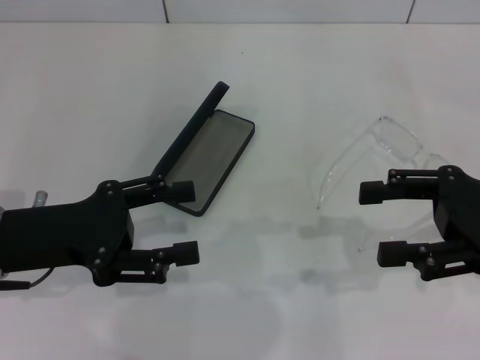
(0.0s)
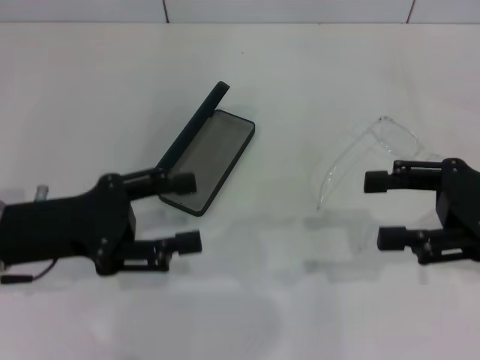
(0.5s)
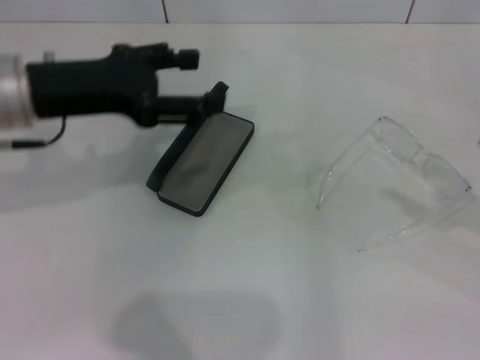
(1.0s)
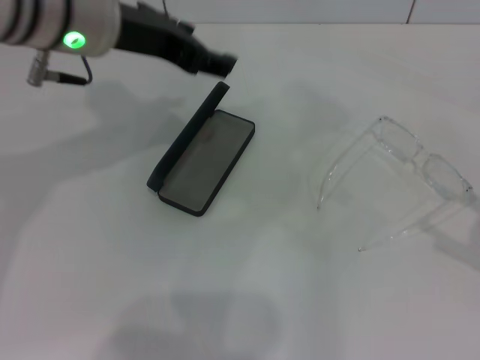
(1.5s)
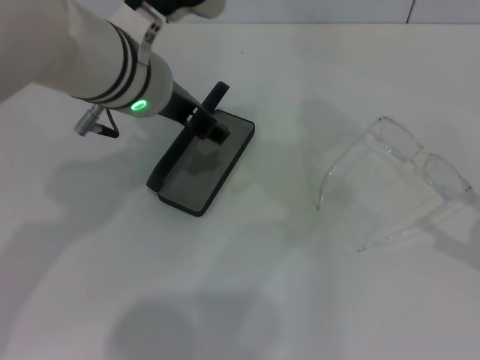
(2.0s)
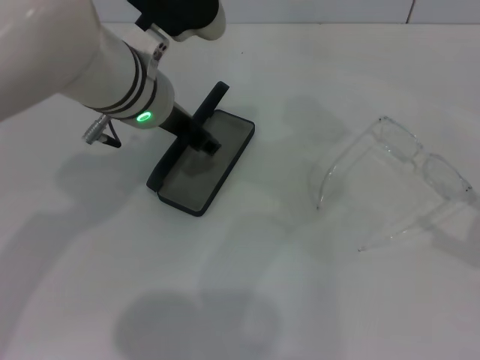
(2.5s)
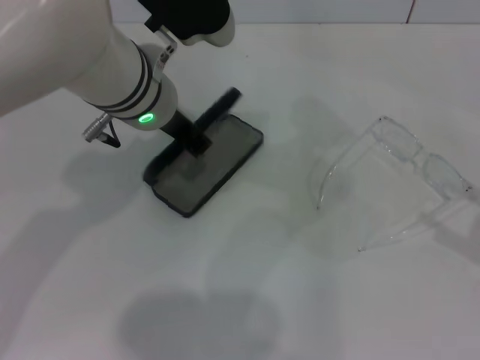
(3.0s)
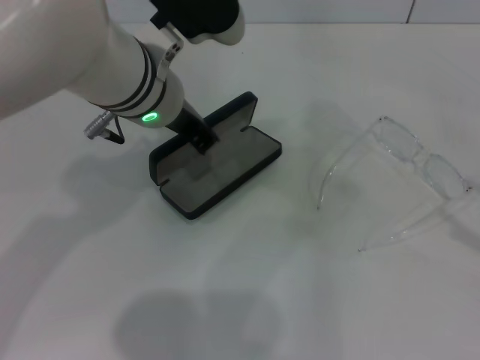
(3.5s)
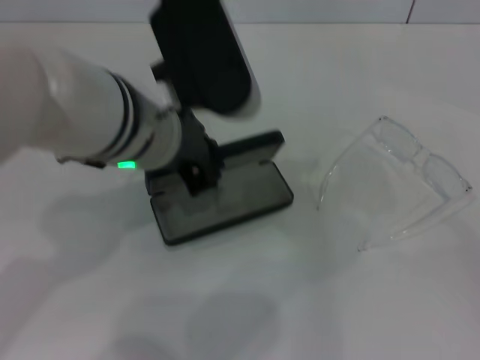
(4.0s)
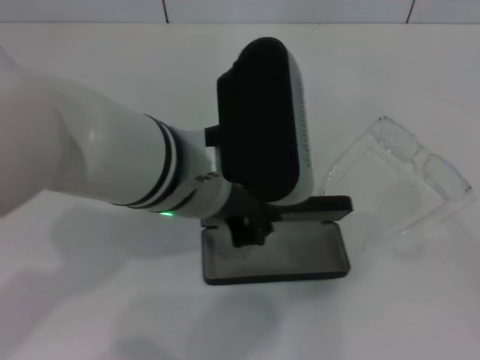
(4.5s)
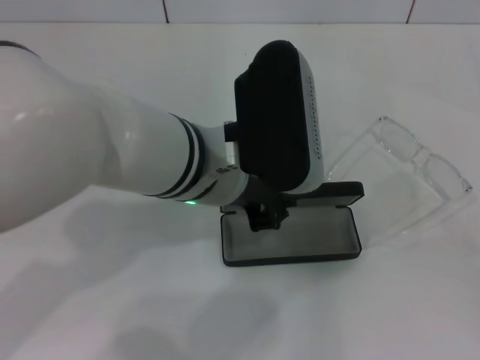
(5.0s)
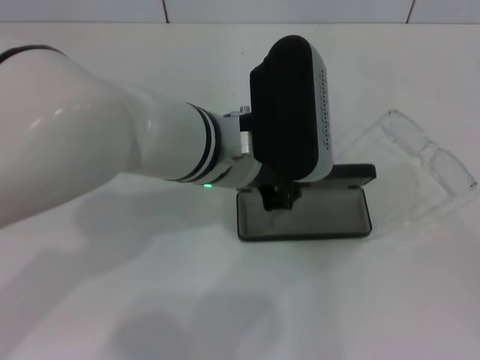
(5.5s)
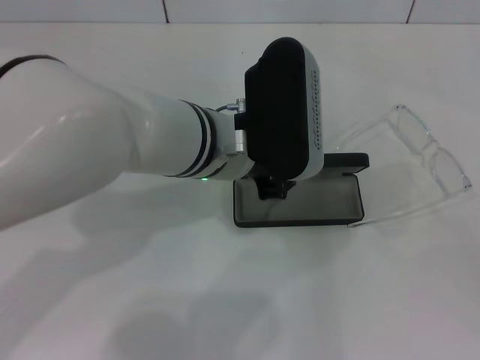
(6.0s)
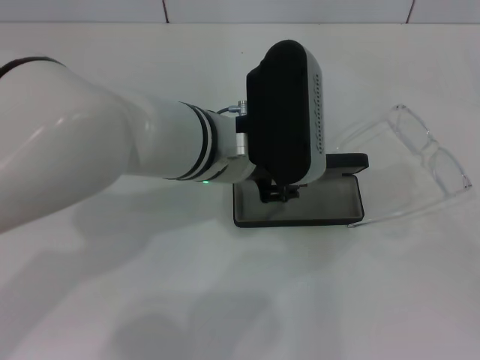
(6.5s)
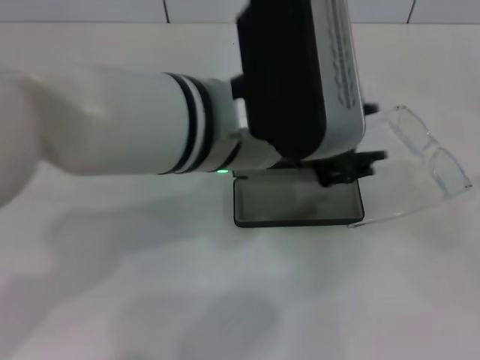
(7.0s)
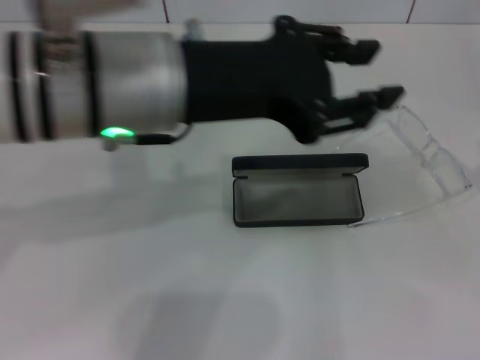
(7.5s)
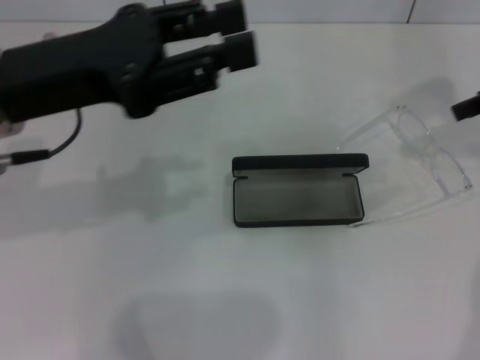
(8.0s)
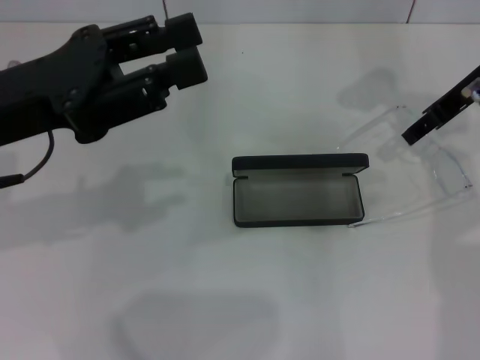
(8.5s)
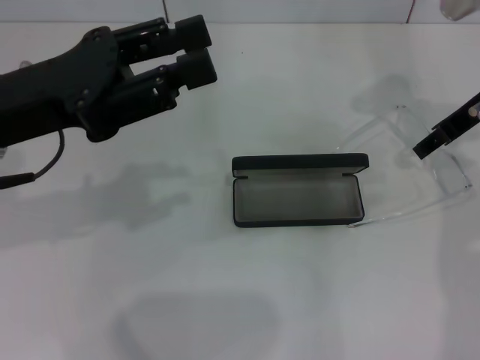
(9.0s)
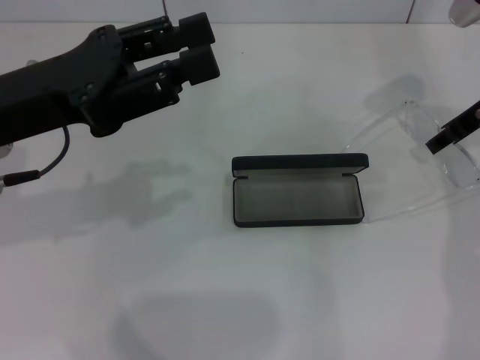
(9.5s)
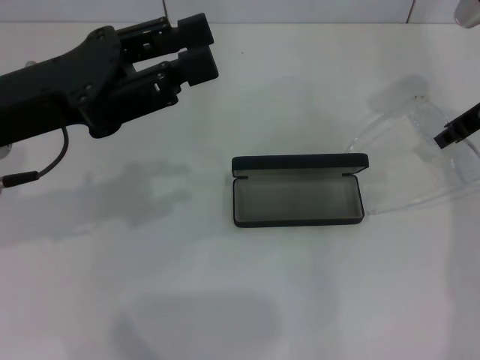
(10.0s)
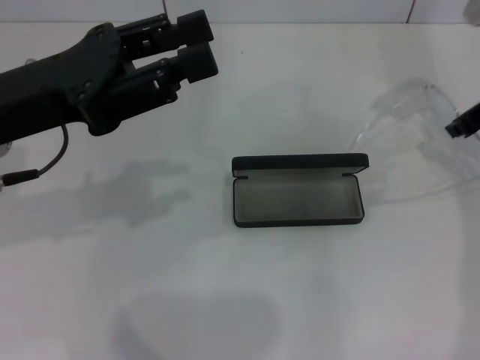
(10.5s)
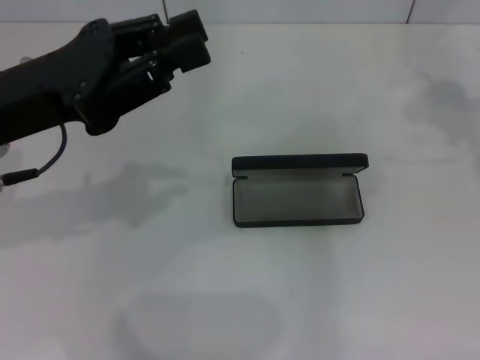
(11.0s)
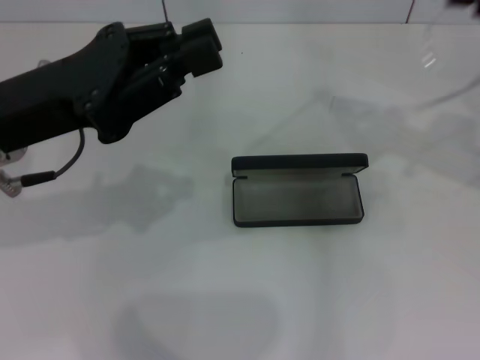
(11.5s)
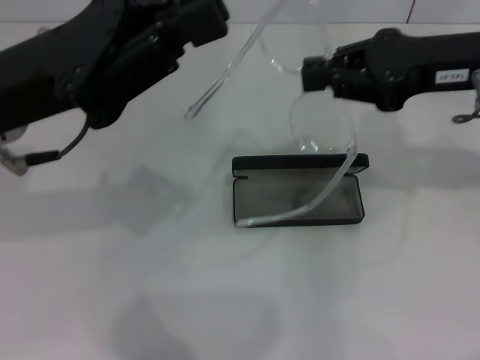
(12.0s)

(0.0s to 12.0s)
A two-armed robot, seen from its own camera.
Step, 0.0s - 2.5s: Grab the glasses case with your left hand.
Step, 3.0s - 6.5s: Place the glasses case in the center of the table with your left hand.
Step, 7.0s - 9.5s: Grab the eyeglass frame with your right hand.
0.0s - 2.0s: The left gripper heads to the right, forward and upward, covering about 20 cm, while the right gripper shifts about 15 cm to the right and backward.
2.0s - 4.0s: The right gripper moves backward and to the right, about 10 cm, while the left gripper goes approximately 5 cm backward, and closes its fingers.
4.0s - 6.0s: The left gripper heads downward, covering approximately 5 cm.
6.0s - 8.0s: The right gripper heads forward, to the left and upward, covering some 35 cm. The left gripper moves to the left and upward, some 20 cm.
8.0s - 10.0s: The right gripper goes about 10 cm downward.
10.0s - 12.0s: The left gripper closes up. Meanwhile the right gripper shifts roughly 10 cm backward and upward, and closes its fingers.

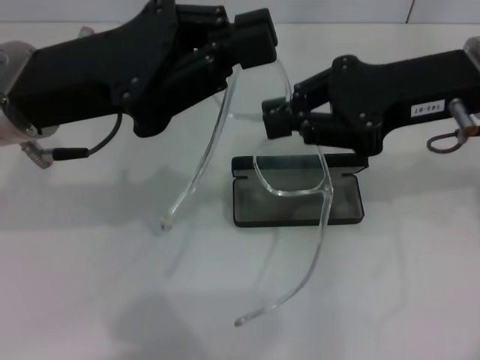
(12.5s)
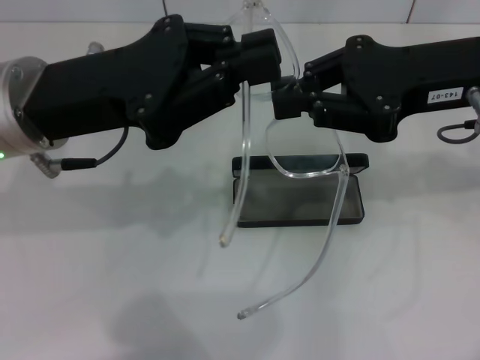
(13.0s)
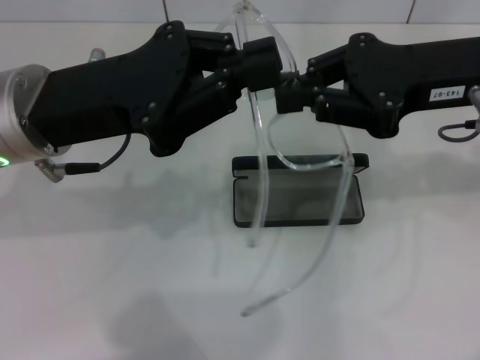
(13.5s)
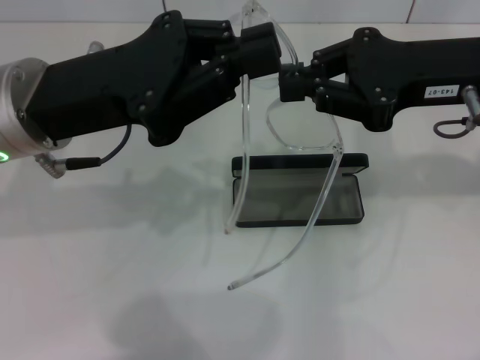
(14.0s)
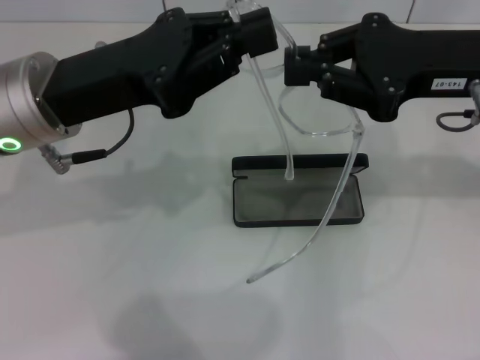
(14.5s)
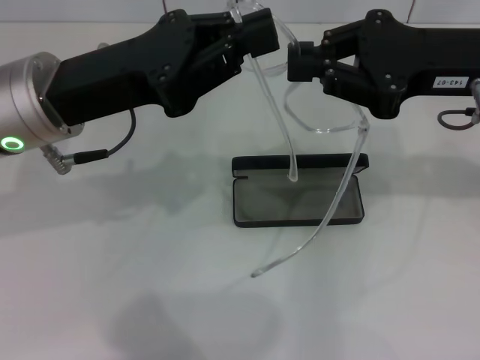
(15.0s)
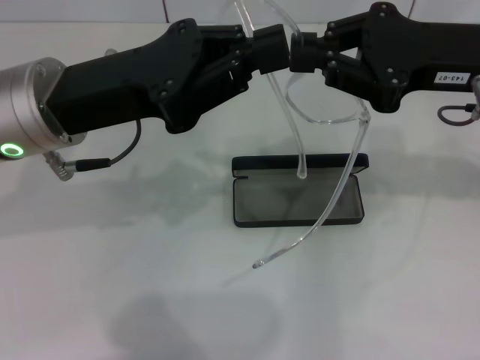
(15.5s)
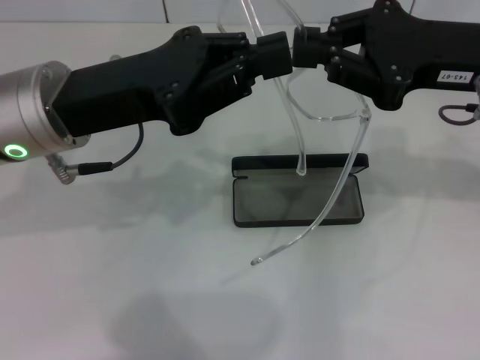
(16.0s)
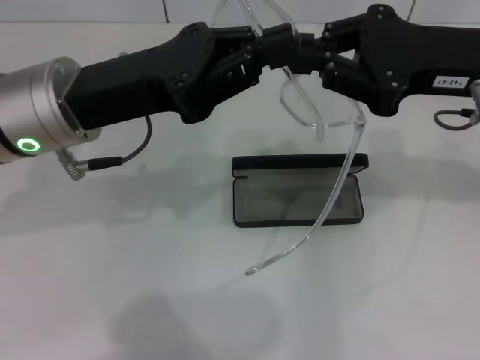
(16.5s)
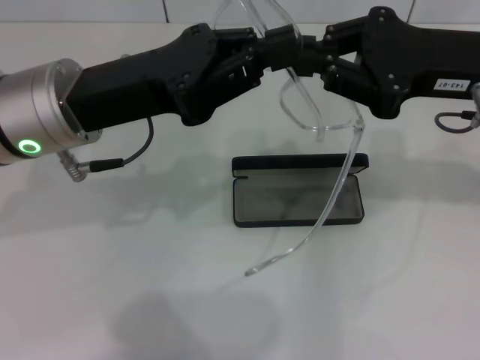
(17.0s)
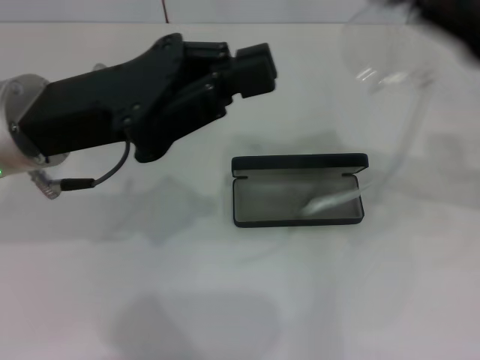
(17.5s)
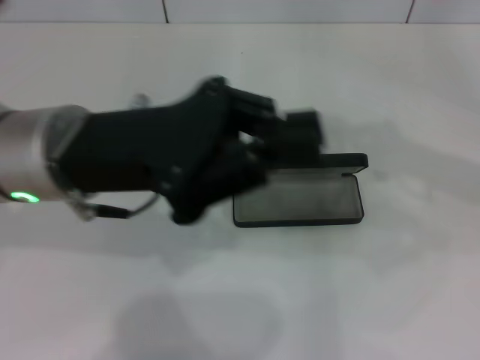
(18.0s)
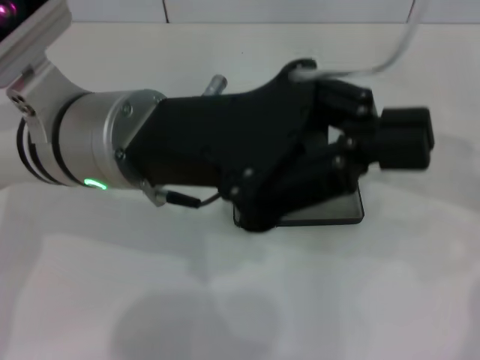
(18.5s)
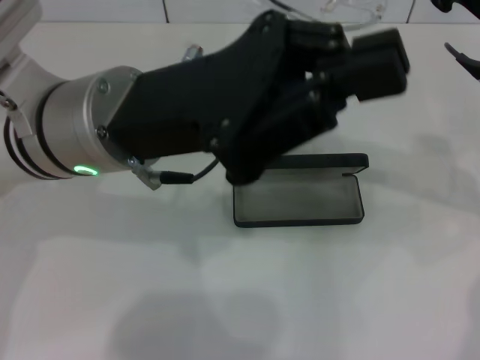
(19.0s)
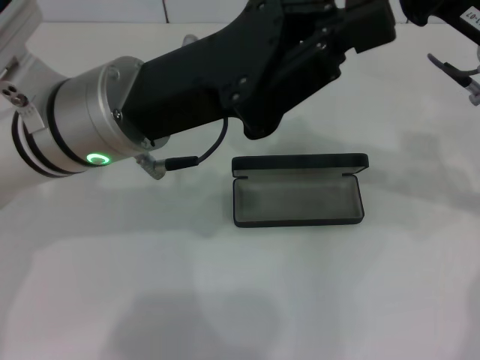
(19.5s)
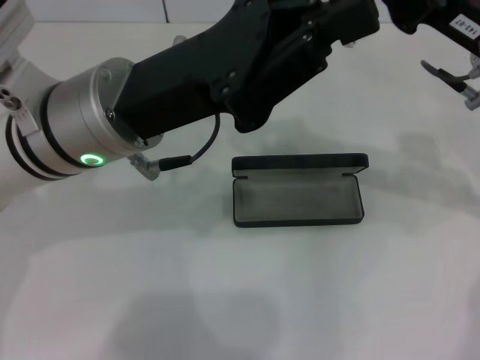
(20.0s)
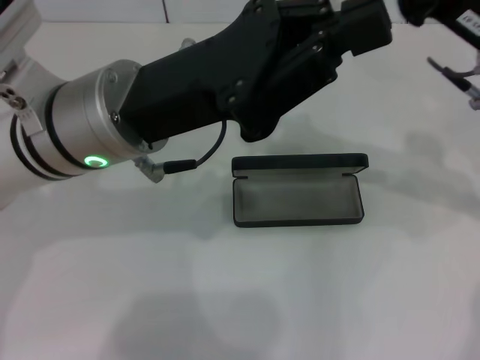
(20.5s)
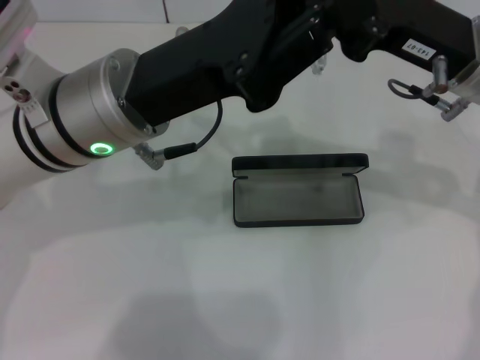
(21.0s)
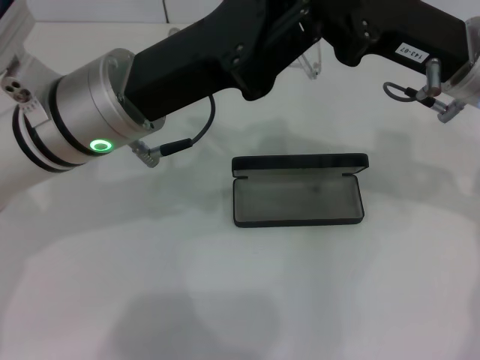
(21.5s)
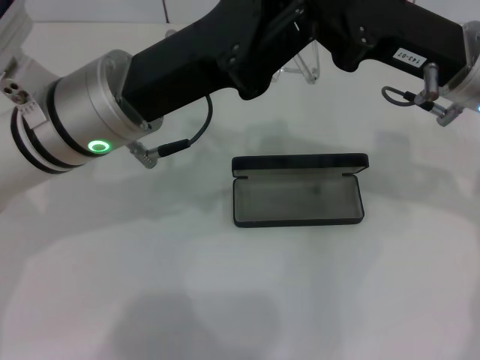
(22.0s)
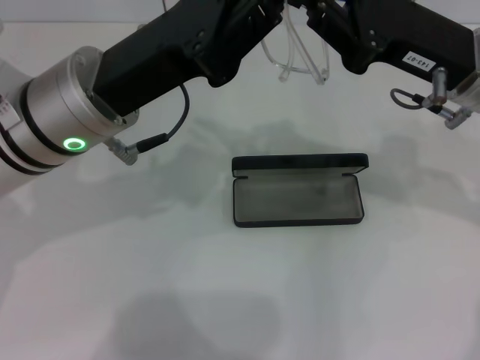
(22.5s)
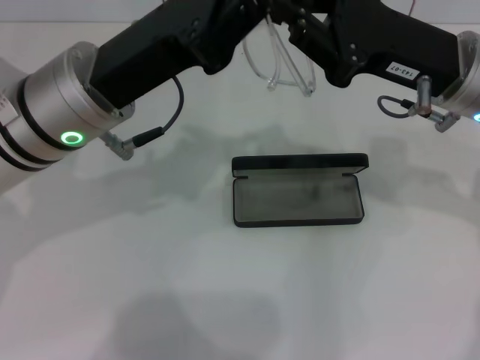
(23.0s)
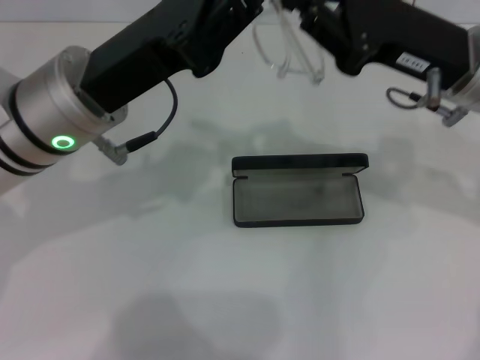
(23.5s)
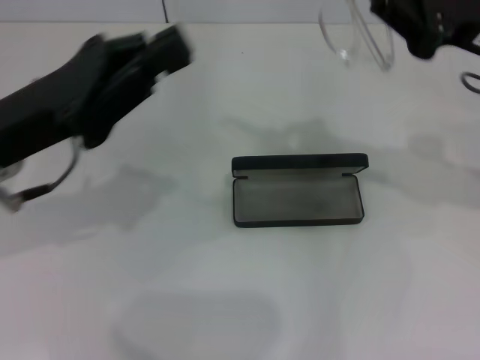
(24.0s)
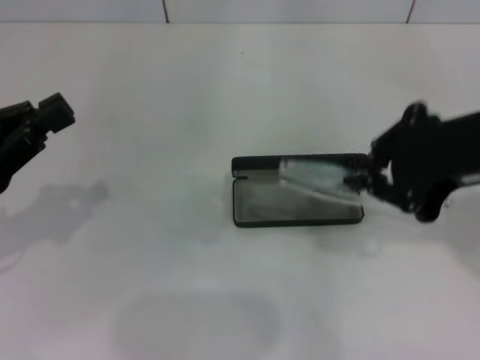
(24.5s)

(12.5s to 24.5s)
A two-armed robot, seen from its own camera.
Step, 12.5s - 23.5s: Fold the frame with your left hand.
14.5s - 16.5s: There are only small adjustments of the grippers.
16.5s - 18.5s: The right gripper goes to the right and returns, roughly 10 cm each way, while the left gripper heads to the right, covering about 5 cm.
22.5s - 24.5s: The left gripper travels to the left and backward by about 20 cm; the right gripper is displaced backward and upward by about 10 cm.

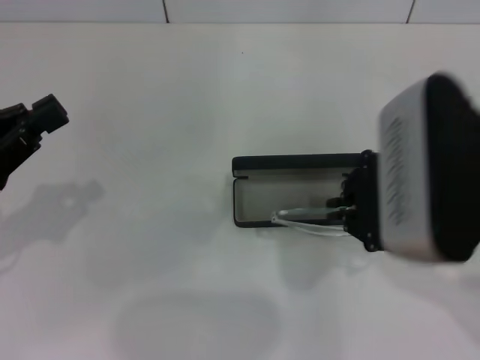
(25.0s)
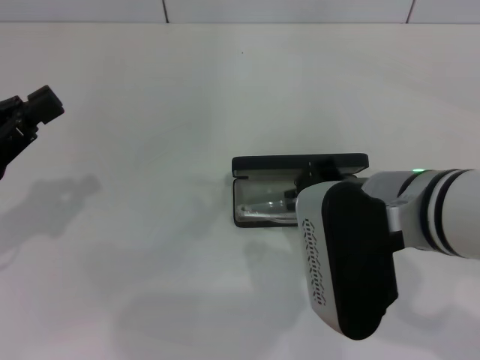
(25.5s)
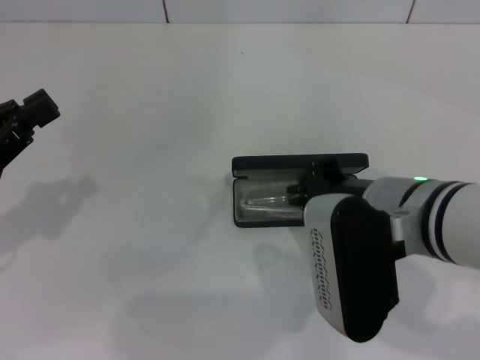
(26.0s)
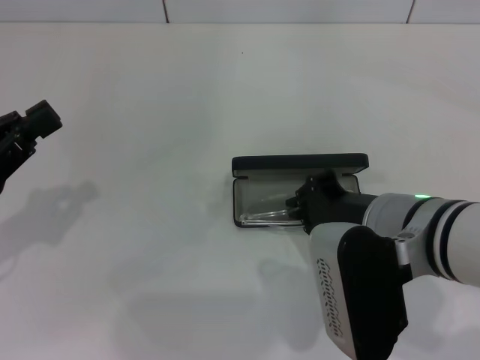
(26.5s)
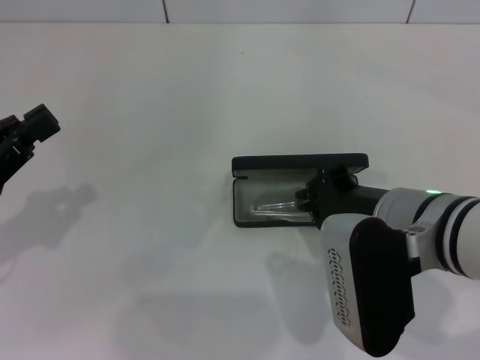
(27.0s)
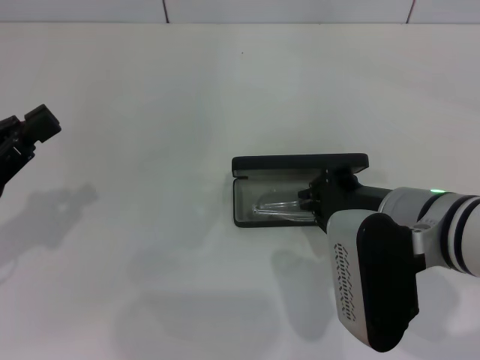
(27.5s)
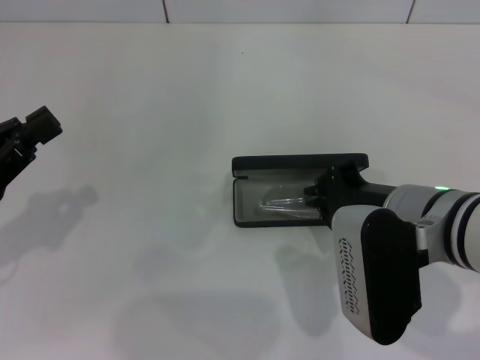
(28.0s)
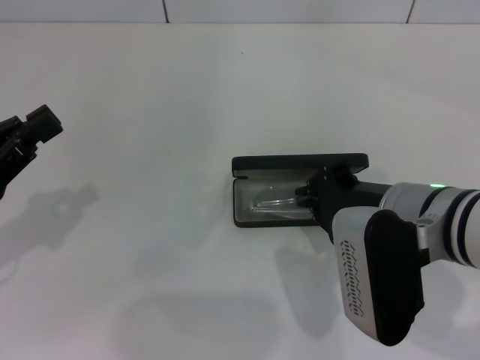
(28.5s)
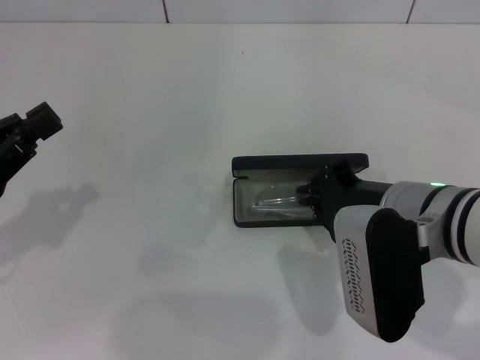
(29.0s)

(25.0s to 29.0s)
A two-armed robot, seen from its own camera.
25.0s - 27.0s: The right gripper is displaced downward by approximately 10 cm.
27.0s - 29.0s: The grippers move only a little.
